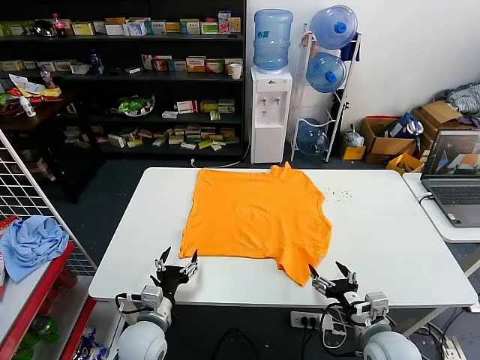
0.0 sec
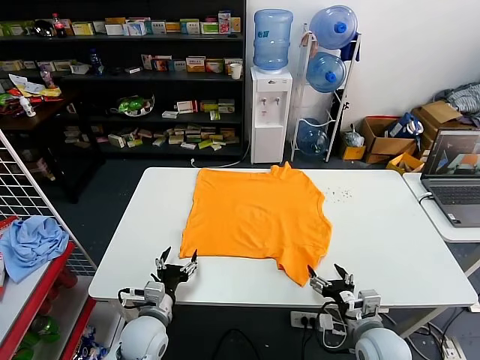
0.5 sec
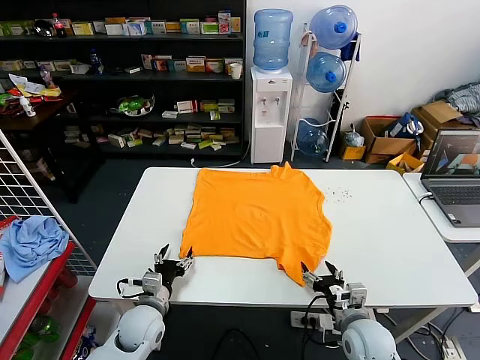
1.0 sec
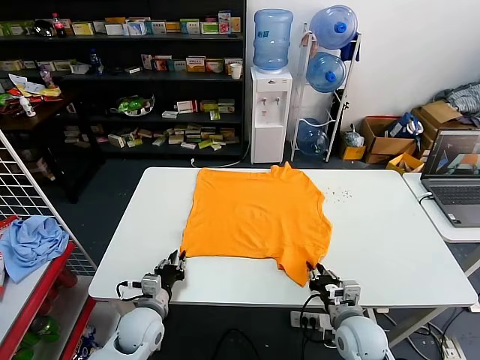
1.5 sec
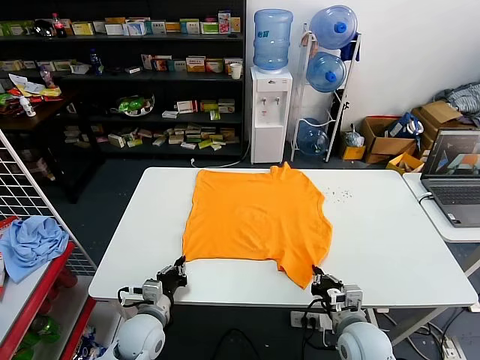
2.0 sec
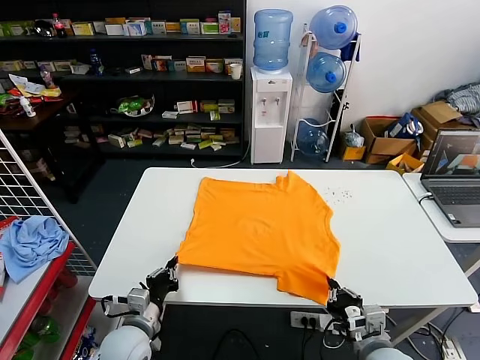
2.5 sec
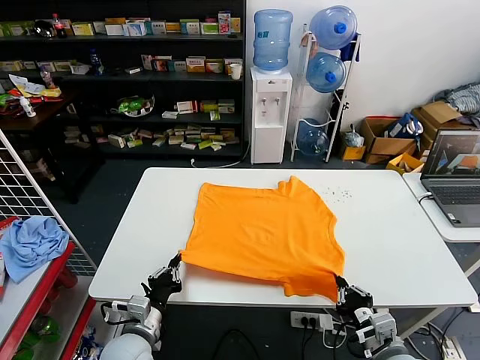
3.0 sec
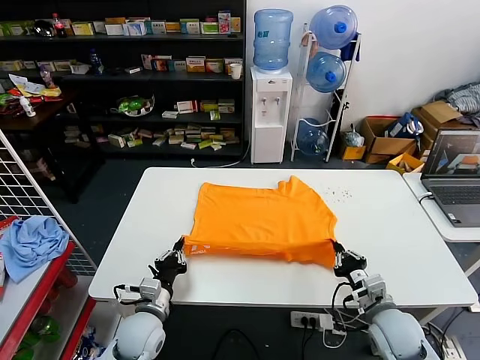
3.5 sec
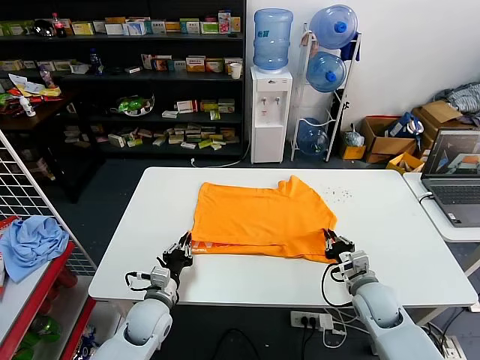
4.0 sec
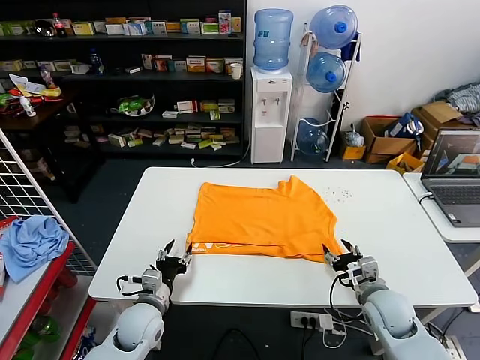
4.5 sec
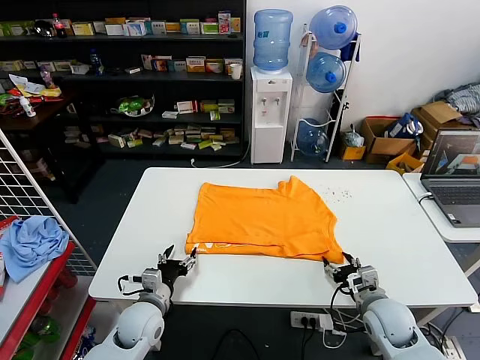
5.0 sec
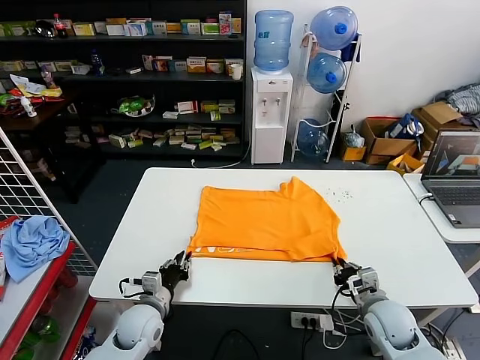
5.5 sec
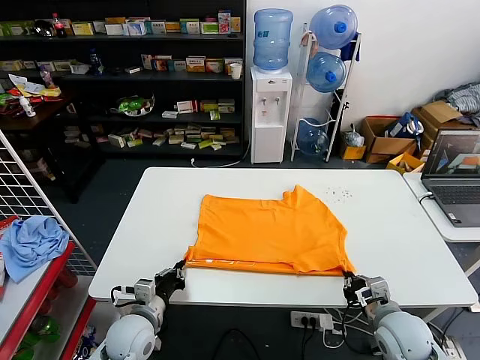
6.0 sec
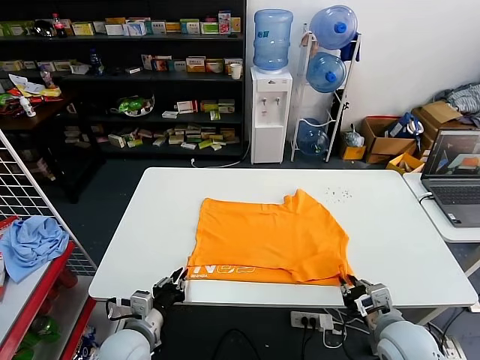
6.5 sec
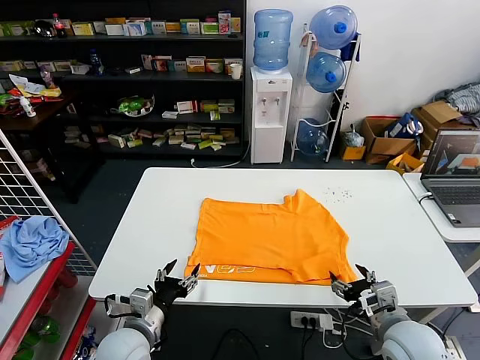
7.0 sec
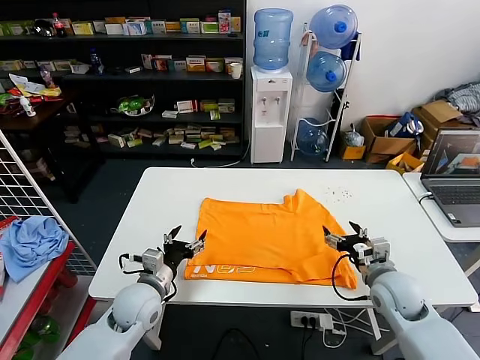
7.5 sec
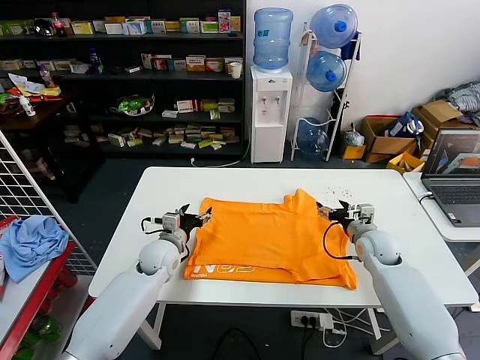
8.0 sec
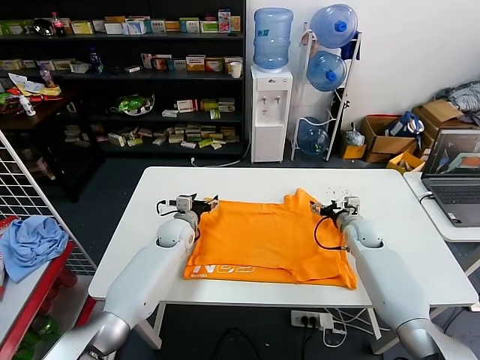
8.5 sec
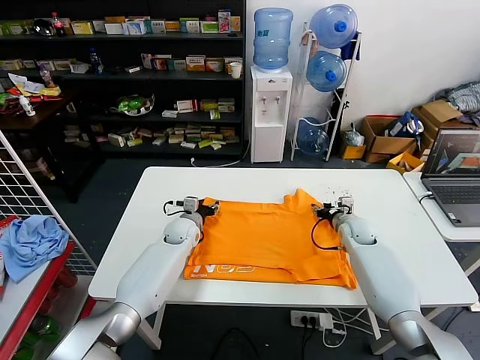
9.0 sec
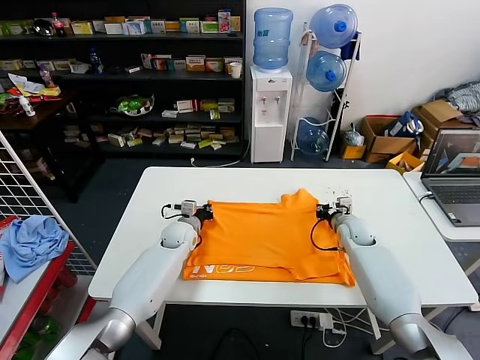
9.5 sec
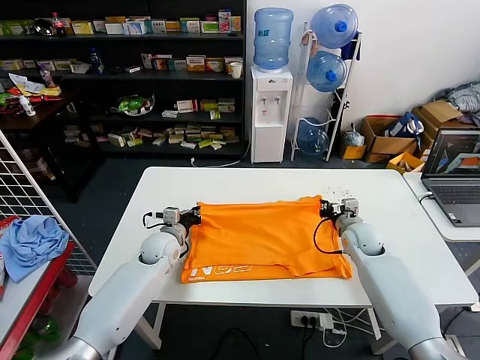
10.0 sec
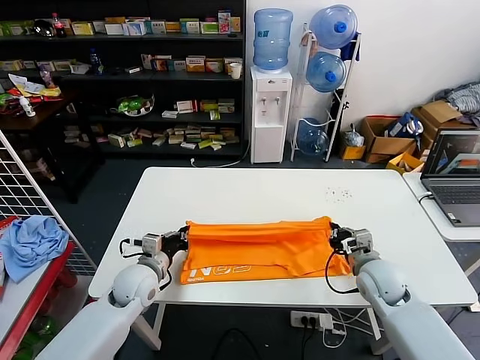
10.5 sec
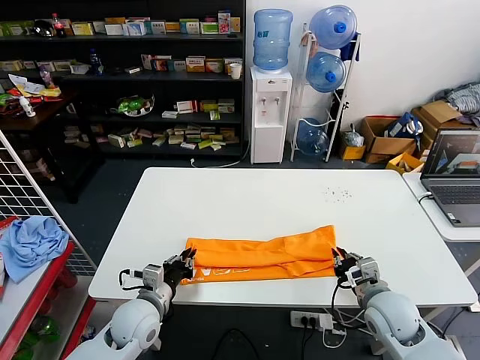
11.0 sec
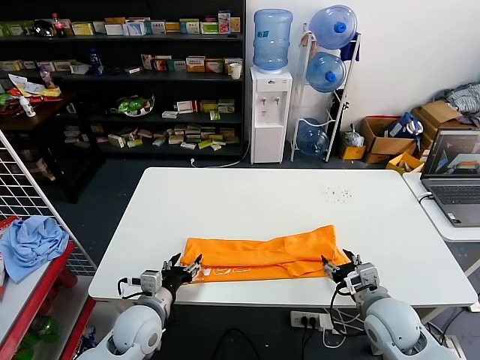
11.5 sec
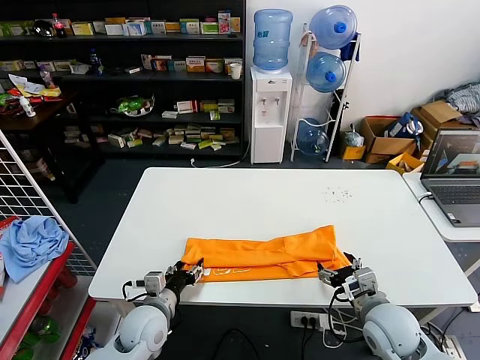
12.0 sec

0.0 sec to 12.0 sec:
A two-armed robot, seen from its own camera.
Task of the whole recording: fold and organize the clothes.
Step, 0.0 sec to 2.0 sec: use both grippers simultaneously to clamp the lower edge of the clothing fabric.
Step, 2.5 sec to 4.0 sec: use both grippers to drag the lower edge of the fabric forward and fold it over the upper edge.
Step, 4.5 sec to 6.5 sec: Drag the clothes downward with both gripper.
Step, 7.0 sec to 9.5 sec: use both grippers simultaneously to clamp the upper edge of the clothing fabric.
Step, 10.0 sec to 11.0 sec: use both grippers to drag the upper edge of the fabric backward and fold it over the lower edge.
2.0 sec to 4.0 sec: The right gripper heads forward and to the right, covering about 10 cm.
4.0 sec to 6.0 sec: The left gripper shifts by about 5 cm, and opens and closes again; the right gripper moves backward, some 10 cm, and opens, then closes once more.
6.0 sec to 8.0 sec: Both grippers move forward, about 20 cm. The right gripper opens up; the left gripper opens up.
8.0 sec to 10.0 sec: The right gripper closes up. Meanwhile the left gripper closes up.
10.0 sec to 12.0 sec: The grippers both shift backward by some 20 cm. The right gripper opens its fingers. The left gripper opens.

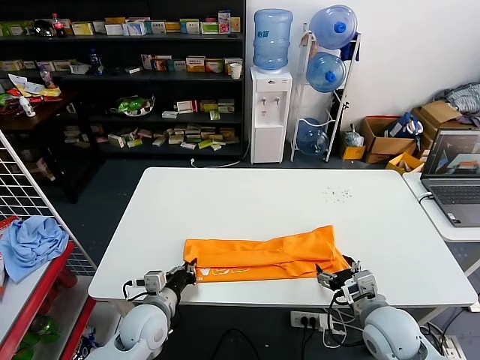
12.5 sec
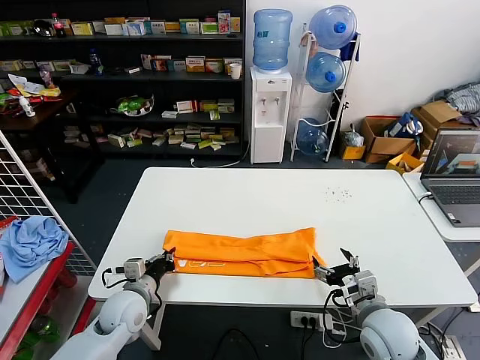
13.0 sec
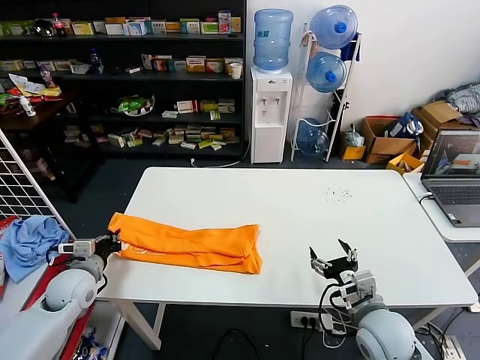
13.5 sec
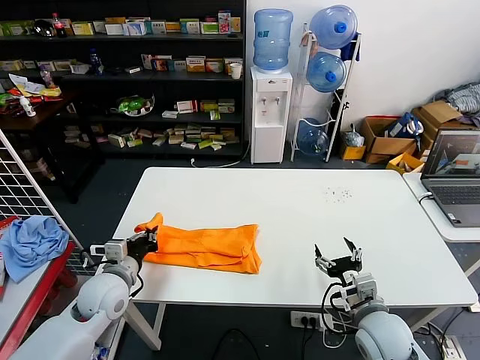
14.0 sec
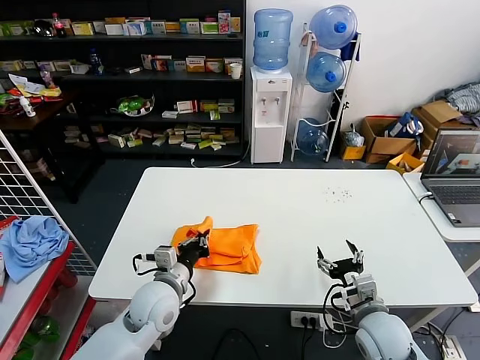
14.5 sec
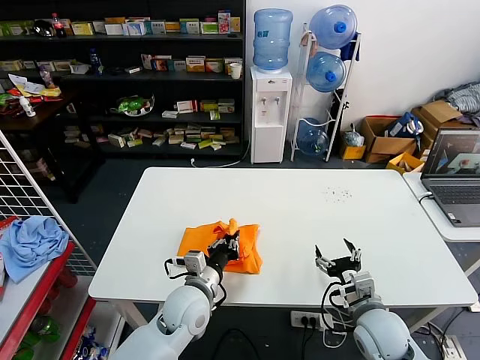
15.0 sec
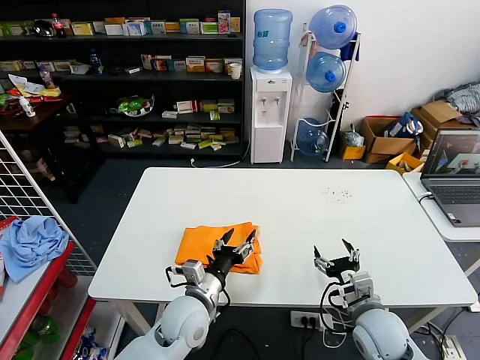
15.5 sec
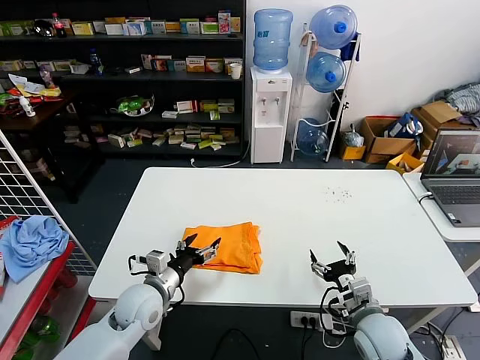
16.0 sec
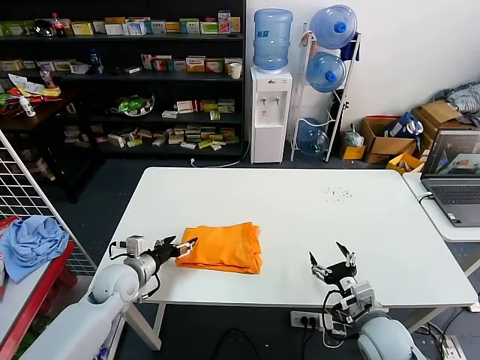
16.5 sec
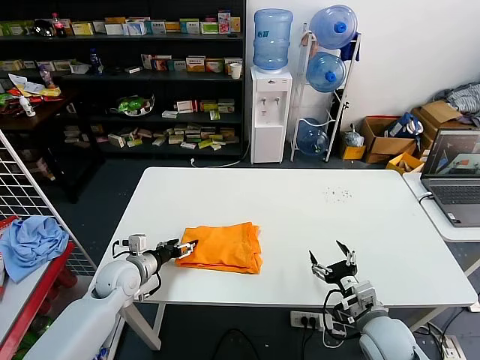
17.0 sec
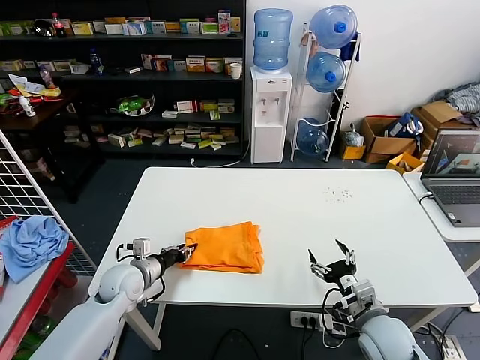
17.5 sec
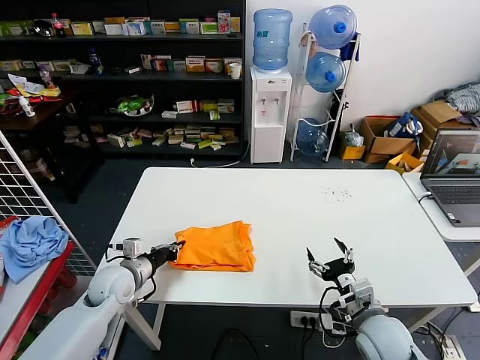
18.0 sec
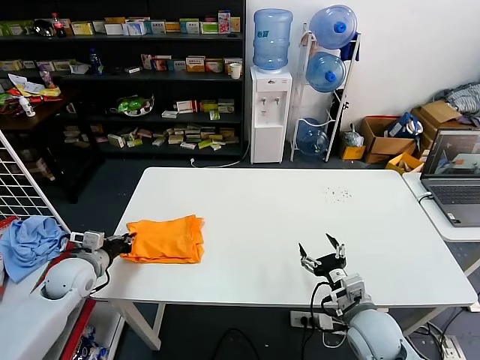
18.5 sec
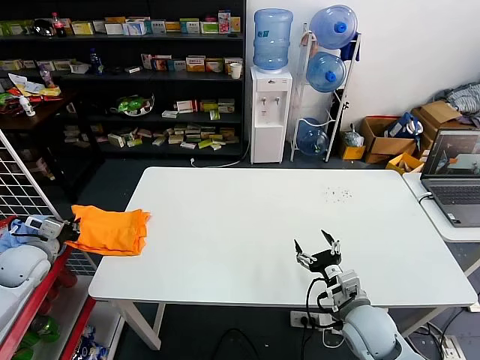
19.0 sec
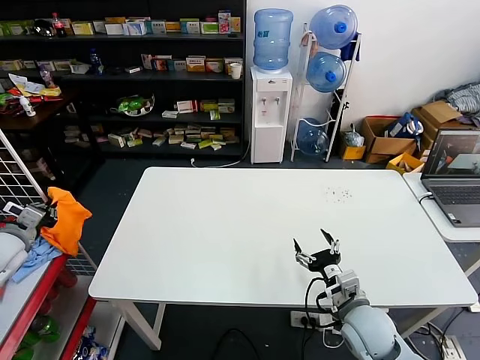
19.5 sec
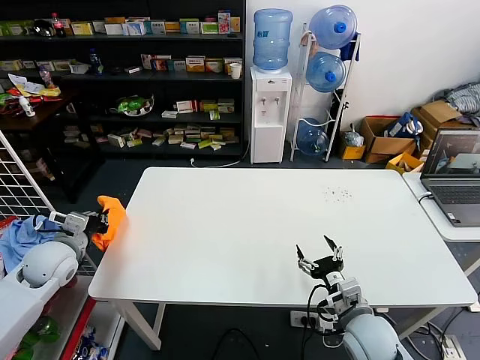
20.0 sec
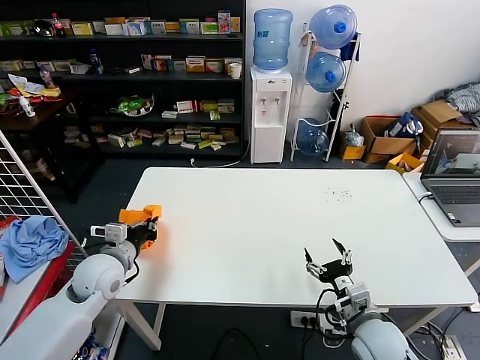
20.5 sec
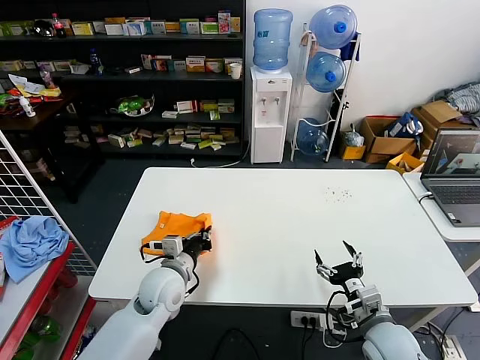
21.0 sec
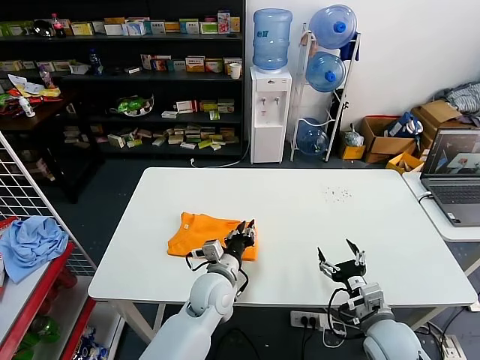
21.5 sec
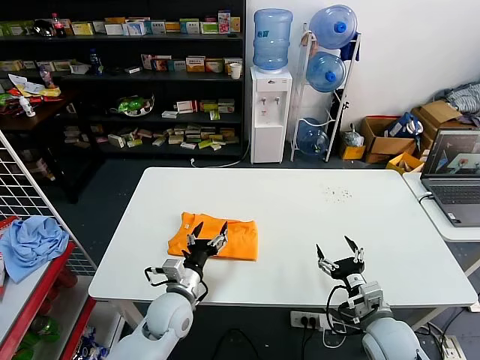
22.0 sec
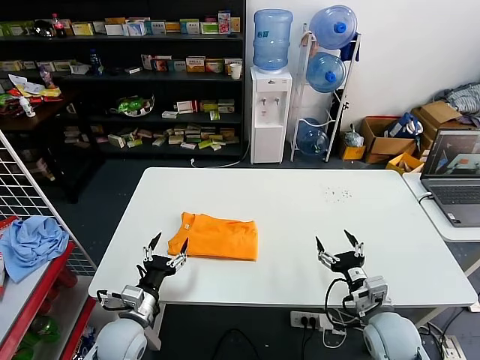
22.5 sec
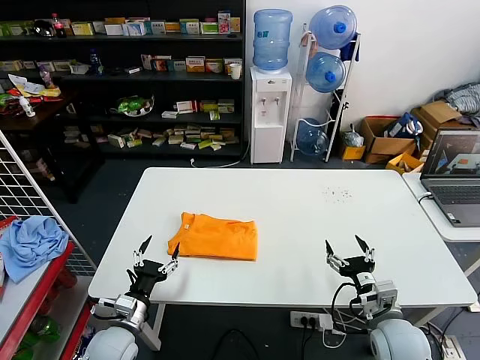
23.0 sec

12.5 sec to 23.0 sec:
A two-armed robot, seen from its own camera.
Task of the whole recording: fold and organize the clothes.
Step, 13.0 sec to 15.0 sec: use the left gripper to drag the left edge of the fabric to the left and folds it over the right edge.
Step, 15.5 sec to 21.5 sec: Flip the folded clothes over with left gripper.
12.5 sec to 14.5 sec: The left gripper moves upward, approximately 5 cm, and goes to the left and returns, approximately 15 cm each way.
14.5 sec to 16.5 sec: The left gripper is displaced to the left and forward by some 10 cm, and opens.
16.5 sec to 19.0 sec: The left gripper heads to the left, covering some 20 cm, and closes its fingers.
19.0 sec to 21.0 sec: The left gripper heads to the right, covering about 30 cm.
21.0 sec to 23.0 sec: The left gripper shifts some 15 cm backward, to the left and downward, and opens.

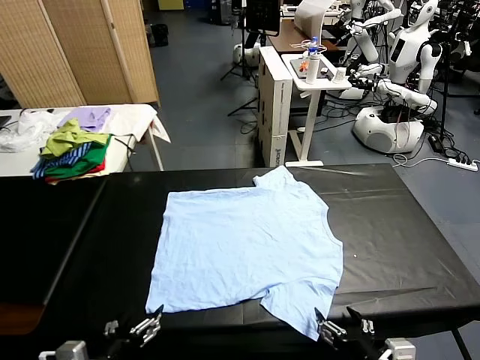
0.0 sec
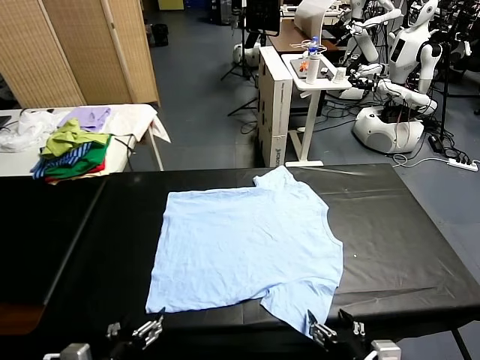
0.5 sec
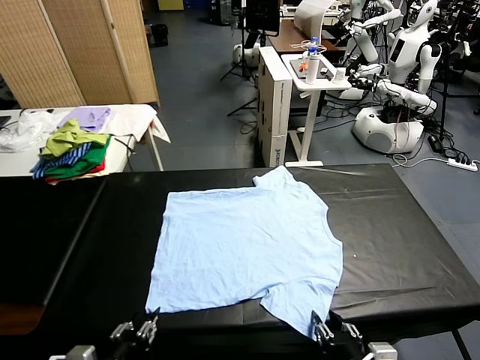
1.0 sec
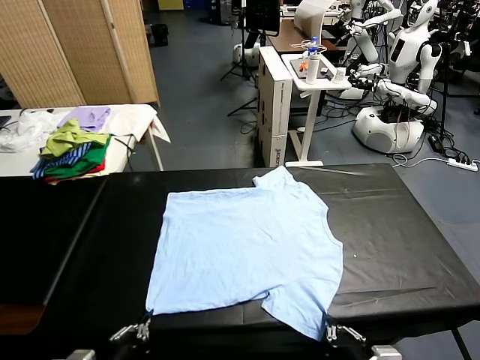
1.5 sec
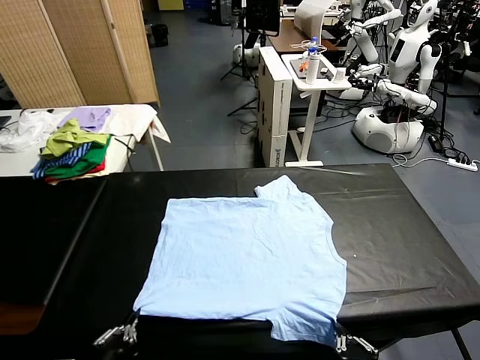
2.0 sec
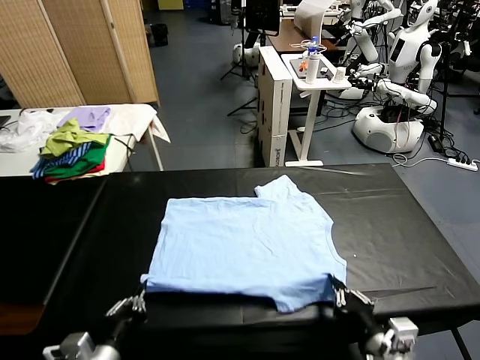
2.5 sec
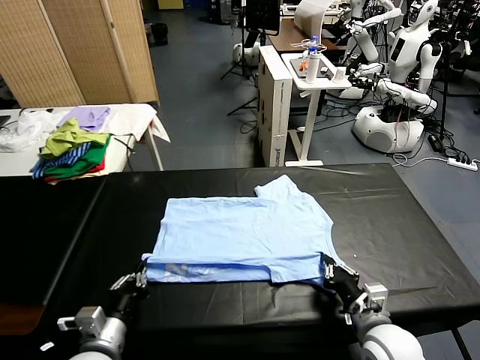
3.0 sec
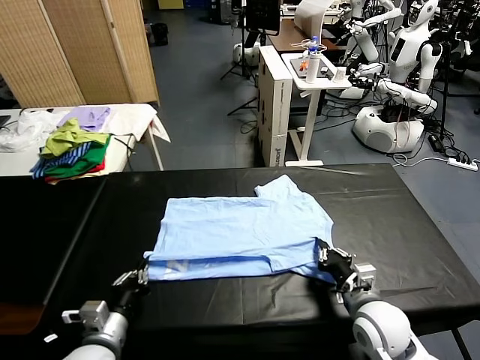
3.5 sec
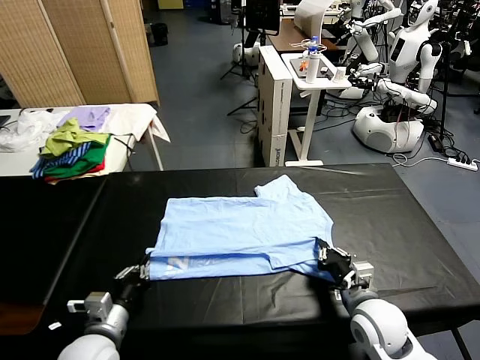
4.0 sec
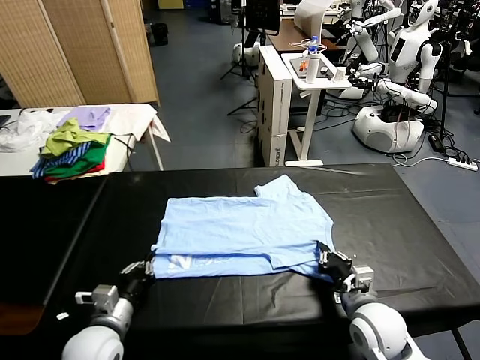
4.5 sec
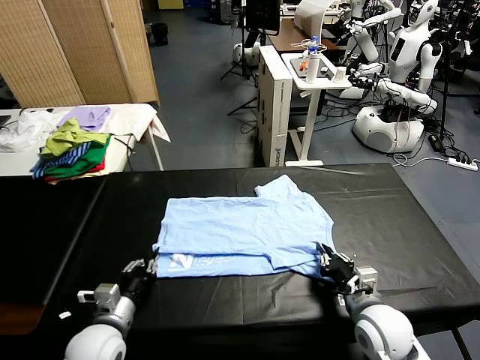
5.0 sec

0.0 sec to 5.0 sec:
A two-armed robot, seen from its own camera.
Task of the whole recording: fold and organize the clothes.
Step, 0.0 sec to 1.5 sec: use both grippers simultaneously to clamp the lower edge of the clothing fabric.
Step, 2.0 sec to 5.0 sec: use both grippers to drag the lower edge of the fabric forward and fold it over the upper edge.
2.5 sec to 5.0 sec: The right gripper opens. The left gripper moves forward, roughly 10 cm, and opens its fingers.
